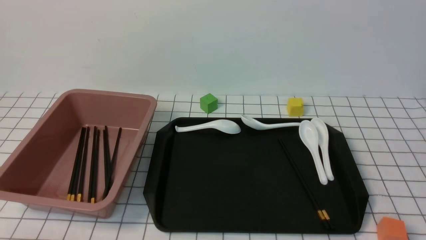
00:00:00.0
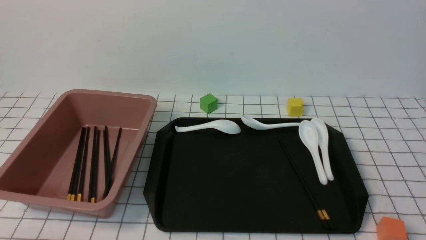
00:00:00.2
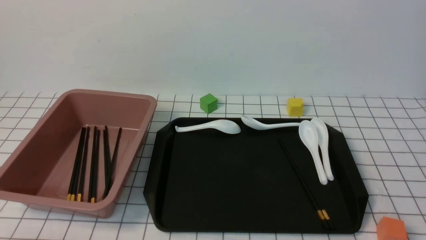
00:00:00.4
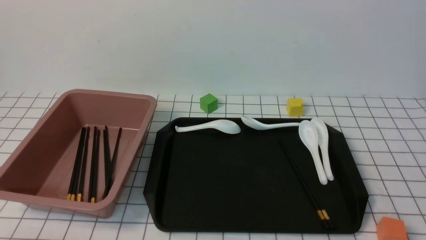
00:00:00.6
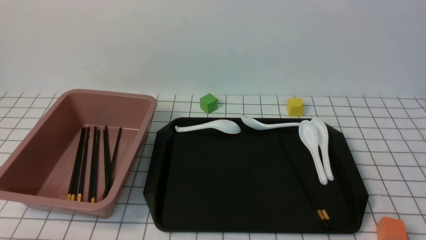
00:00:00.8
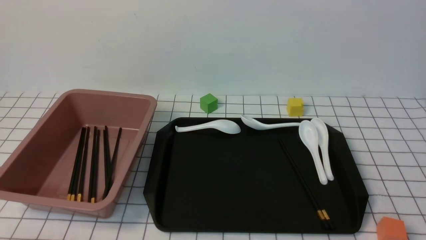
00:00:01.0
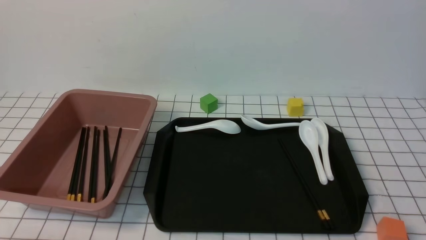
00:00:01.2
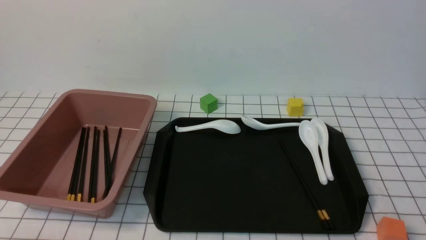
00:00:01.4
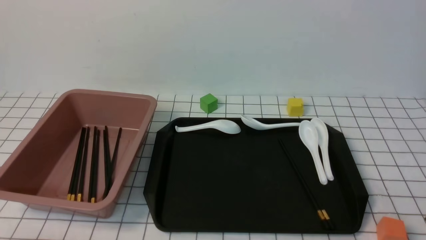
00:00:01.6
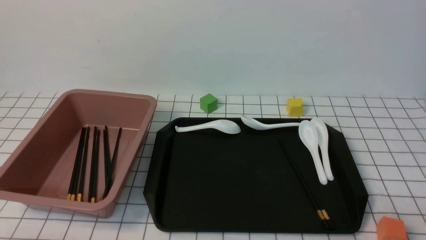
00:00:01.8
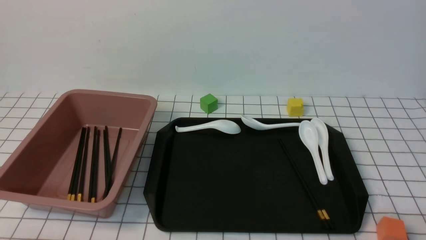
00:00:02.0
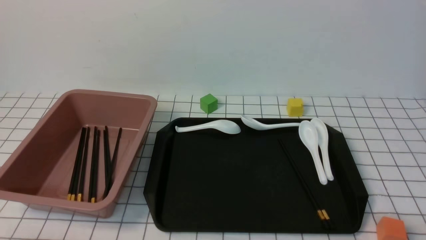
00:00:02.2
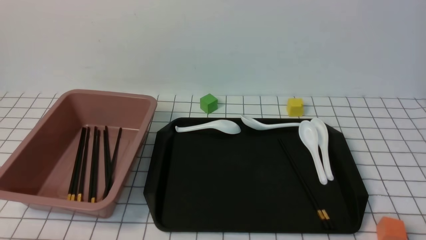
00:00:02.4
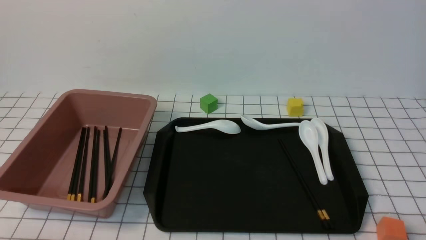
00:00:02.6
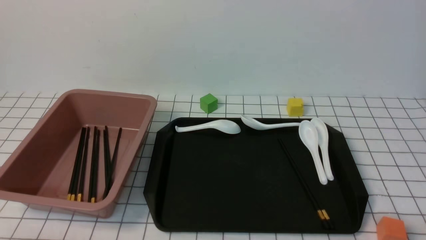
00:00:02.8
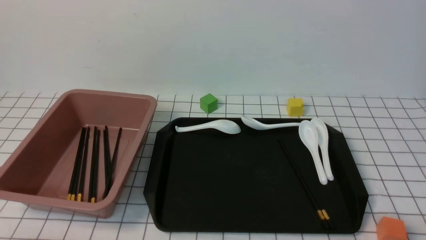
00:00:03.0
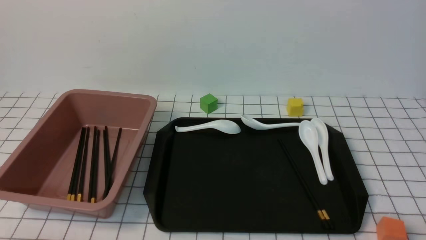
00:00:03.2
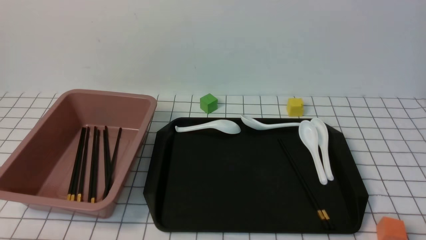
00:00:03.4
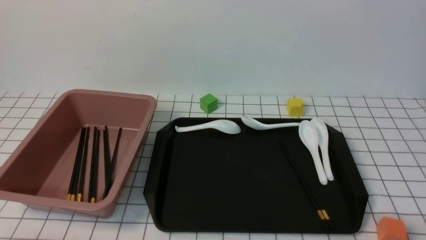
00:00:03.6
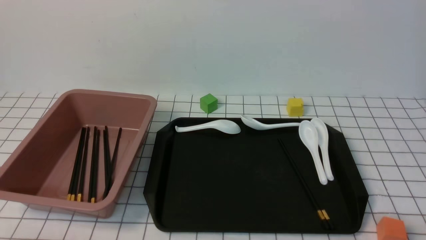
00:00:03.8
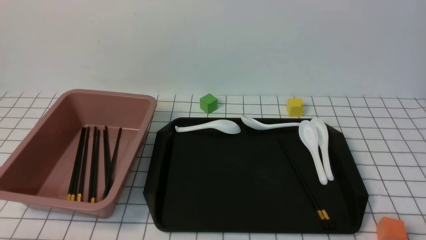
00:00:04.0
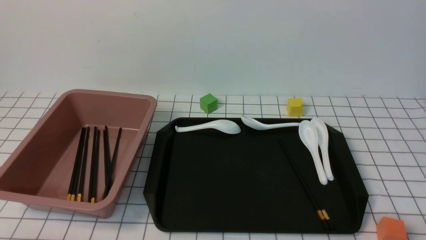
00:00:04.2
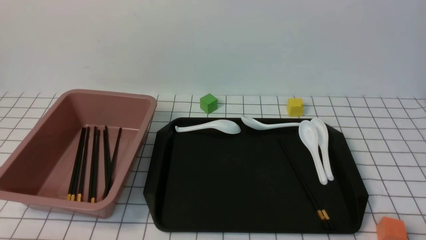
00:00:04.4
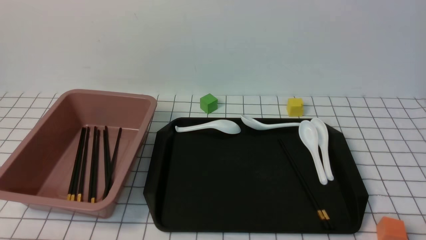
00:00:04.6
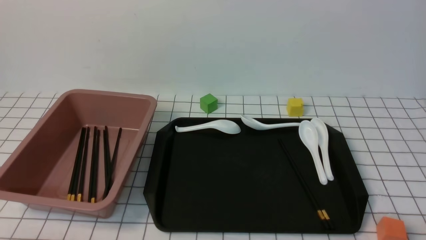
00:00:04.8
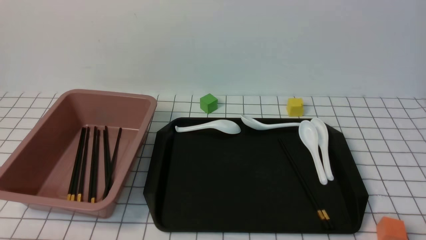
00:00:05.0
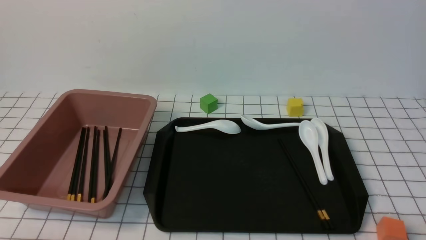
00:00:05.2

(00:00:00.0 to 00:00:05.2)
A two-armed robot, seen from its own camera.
00:00:03.4 - 00:00:05.2: Both grippers stay about where they are.

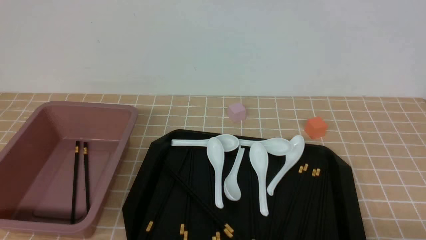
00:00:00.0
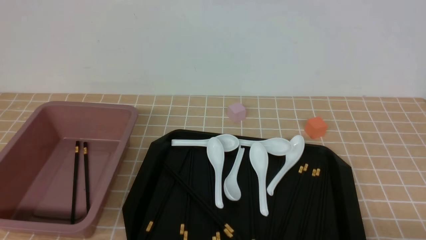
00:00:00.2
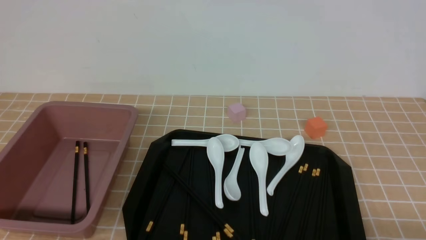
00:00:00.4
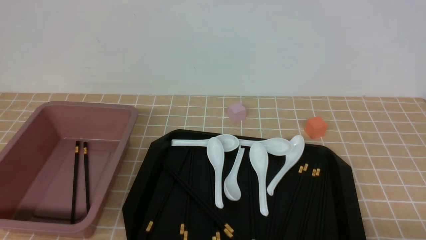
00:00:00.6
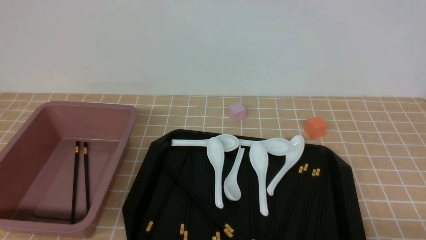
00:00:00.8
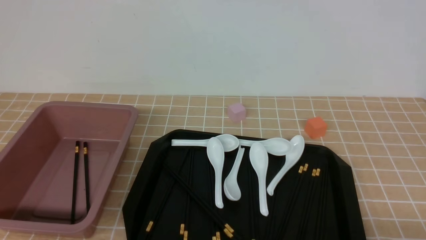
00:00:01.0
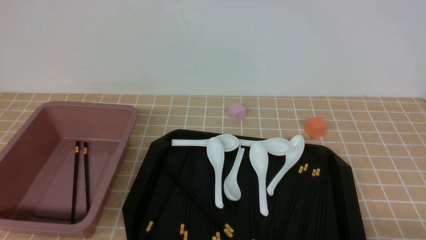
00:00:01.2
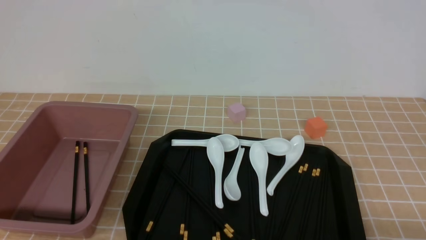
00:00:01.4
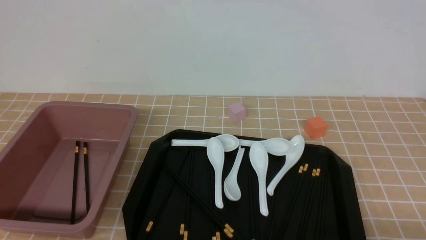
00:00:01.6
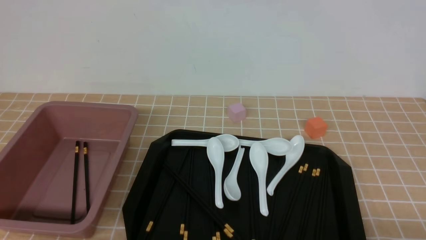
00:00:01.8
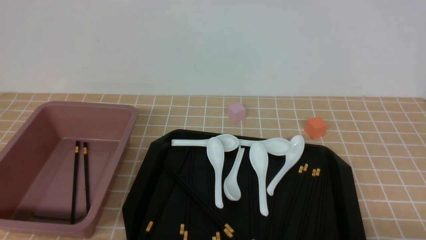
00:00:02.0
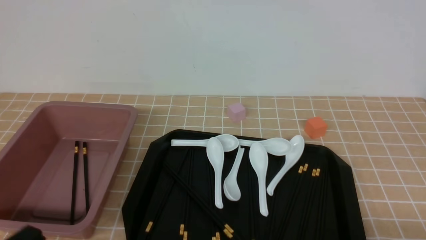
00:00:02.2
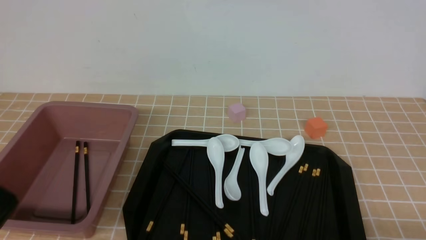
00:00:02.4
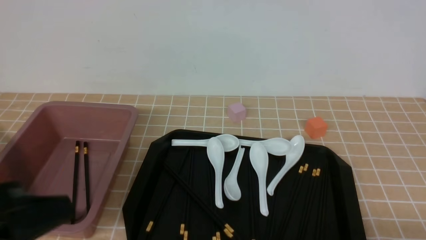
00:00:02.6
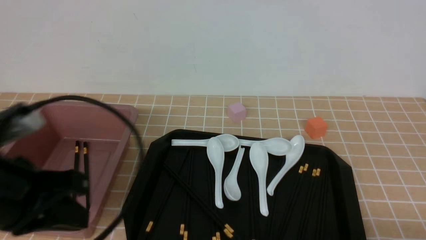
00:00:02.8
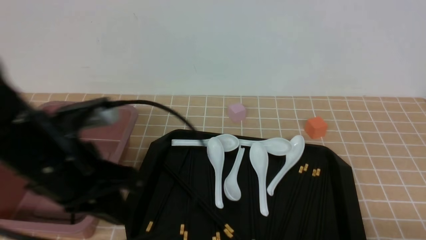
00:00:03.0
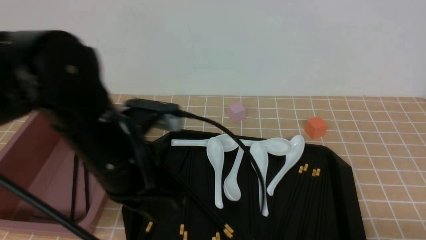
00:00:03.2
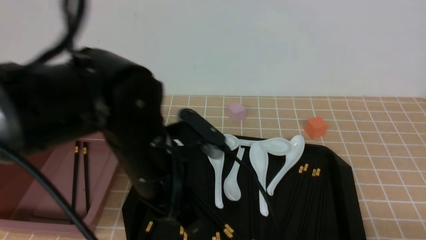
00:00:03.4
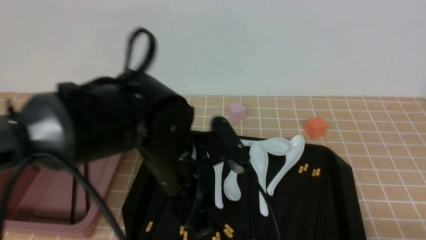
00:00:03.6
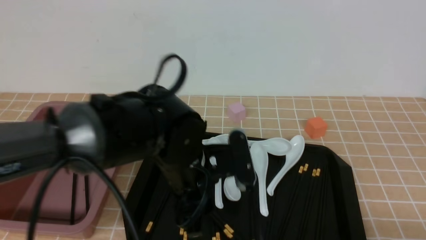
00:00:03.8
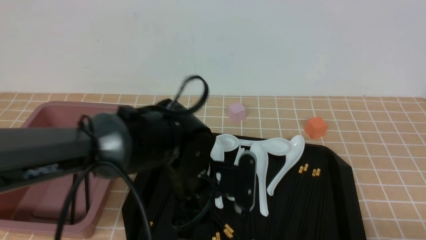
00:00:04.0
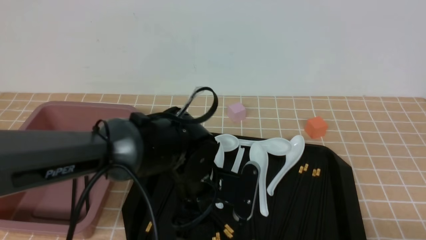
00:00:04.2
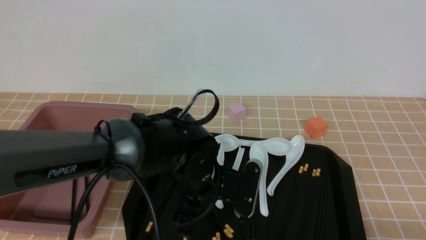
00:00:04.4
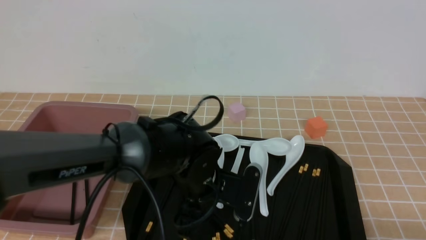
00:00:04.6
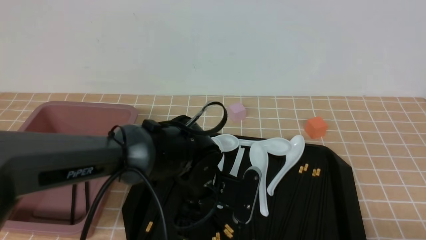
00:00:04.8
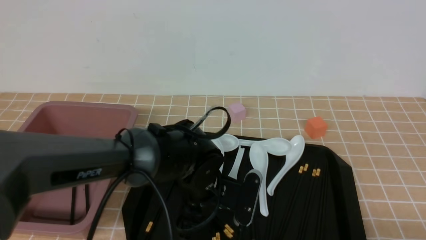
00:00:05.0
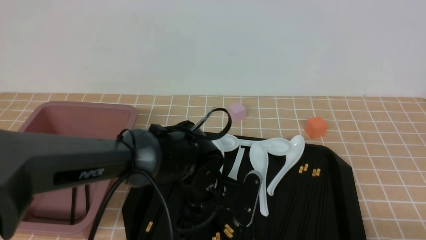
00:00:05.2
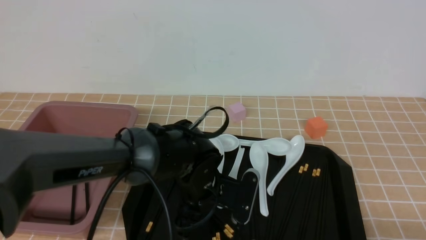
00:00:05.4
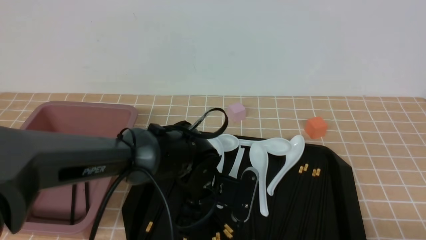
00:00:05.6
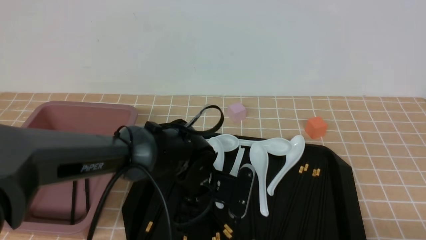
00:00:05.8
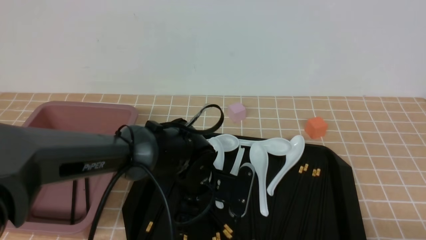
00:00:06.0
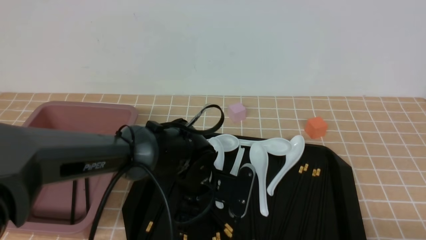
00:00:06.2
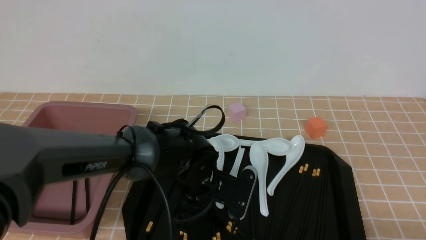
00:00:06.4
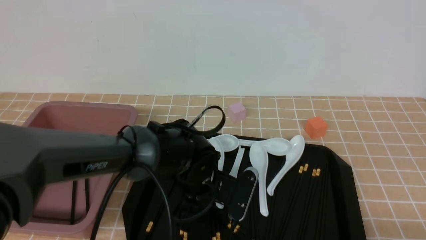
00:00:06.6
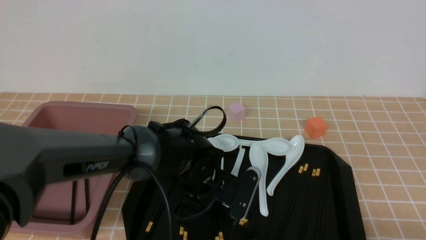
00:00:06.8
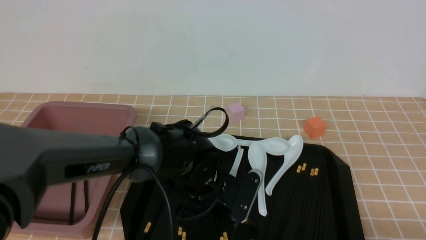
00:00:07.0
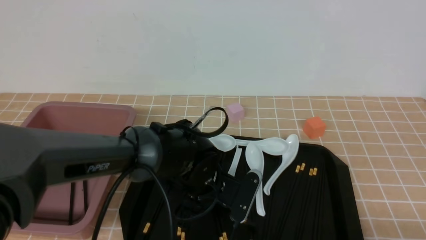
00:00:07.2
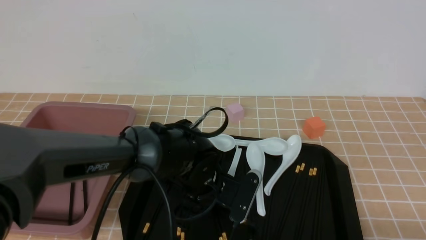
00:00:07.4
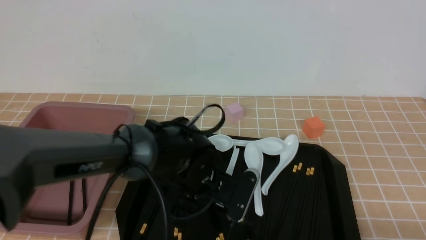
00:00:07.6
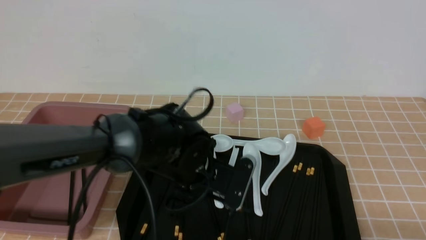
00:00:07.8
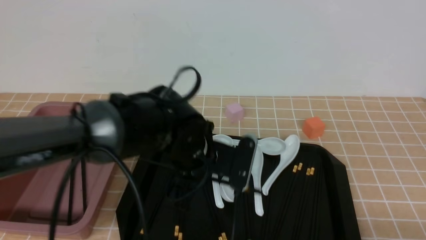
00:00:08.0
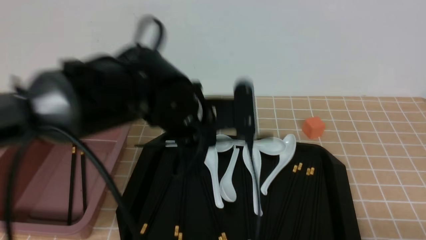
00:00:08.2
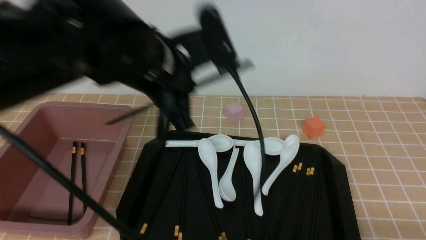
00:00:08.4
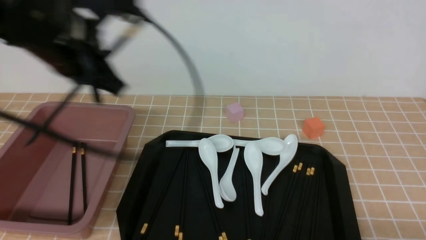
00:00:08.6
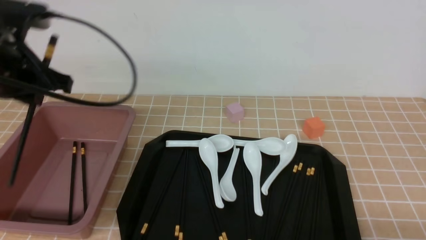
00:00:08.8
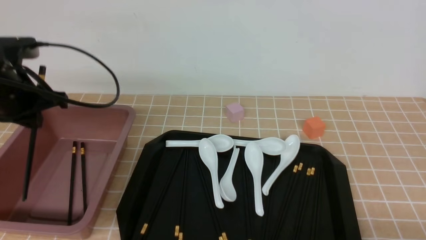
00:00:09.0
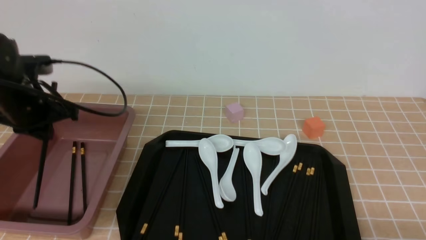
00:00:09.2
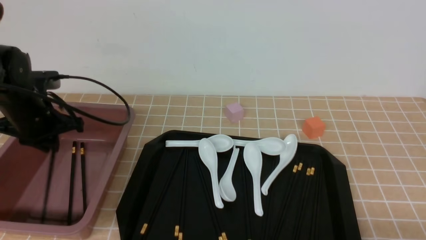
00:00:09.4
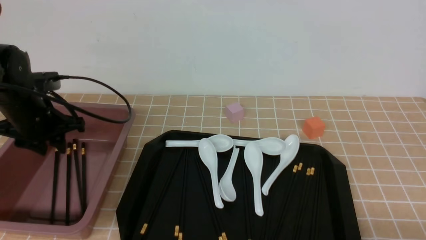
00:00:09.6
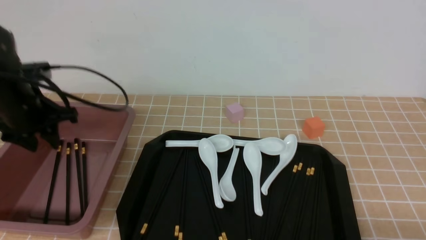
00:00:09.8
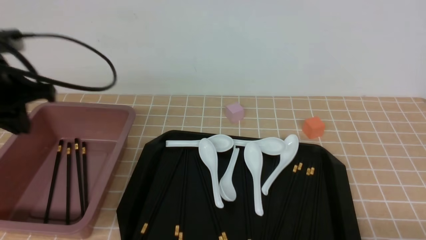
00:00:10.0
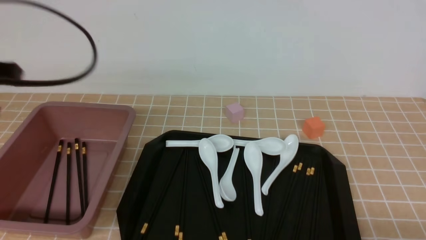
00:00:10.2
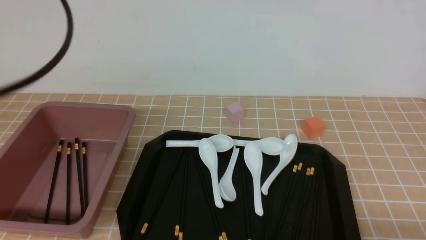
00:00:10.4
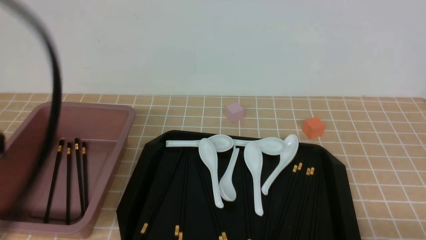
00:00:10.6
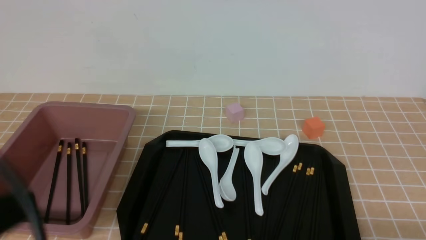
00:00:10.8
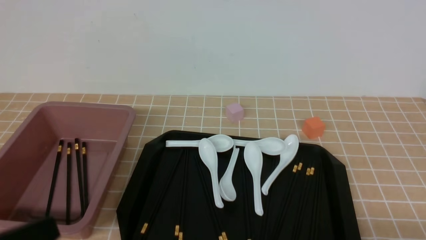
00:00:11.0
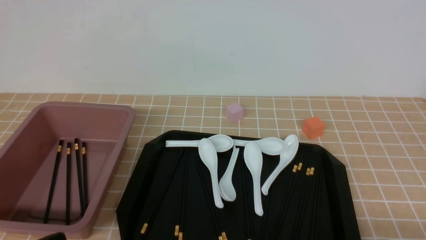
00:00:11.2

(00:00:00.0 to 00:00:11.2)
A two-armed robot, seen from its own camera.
Step, 00:00:00.0 - 00:00:08.2: use the left arm to grab a pair of chopsticks.
Step, 00:00:08.4 - 00:00:09.8: use the left arm to put the chopsticks into the lunch box.
00:00:01.6 - 00:00:03.2: The left gripper is displaced forward, to the right and upward by approximately 25 cm.
00:00:03.2 - 00:00:04.8: The left gripper moves downward, to the right and forward, roughly 15 cm, and opens its fingers.
00:00:04.8 - 00:00:06.4: The grippers move only a little.
00:00:06.4 - 00:00:08.0: The left gripper goes roughly 10 cm upward, and closes.
00:00:08.0 - 00:00:09.6: The left gripper heads to the left, covering about 25 cm, and opens up.
00:00:09.6 - 00:00:11.2: The left gripper heads backward, covering approximately 30 cm, and closes.
